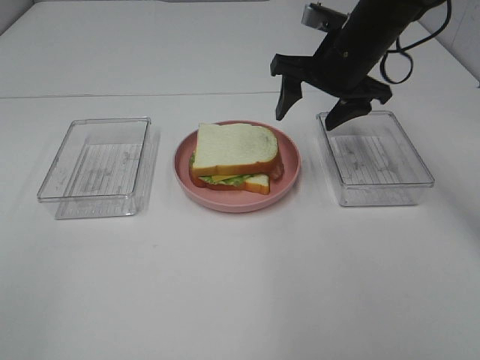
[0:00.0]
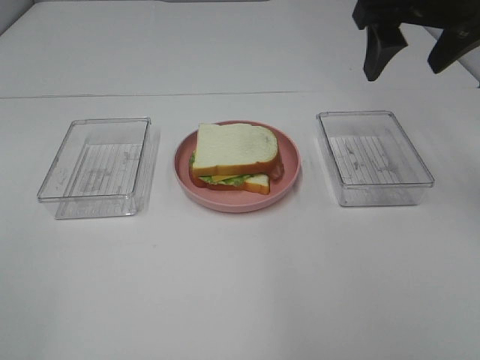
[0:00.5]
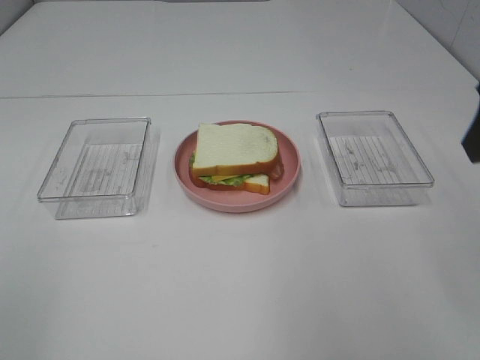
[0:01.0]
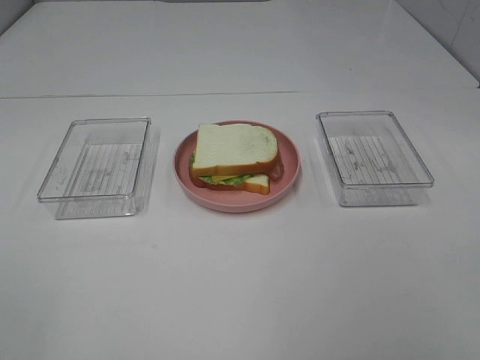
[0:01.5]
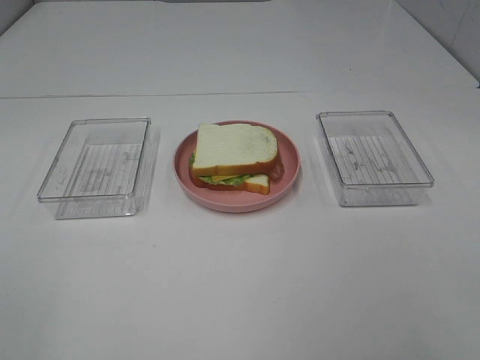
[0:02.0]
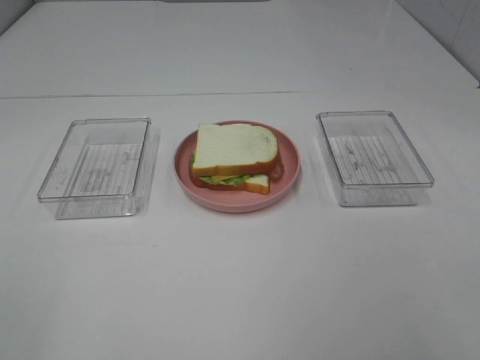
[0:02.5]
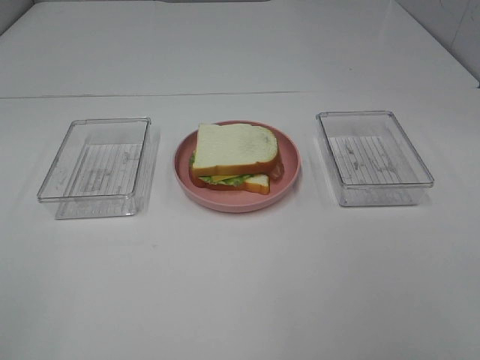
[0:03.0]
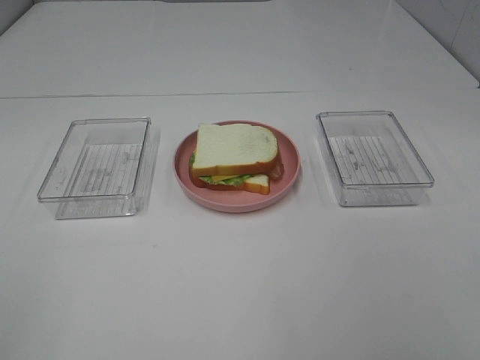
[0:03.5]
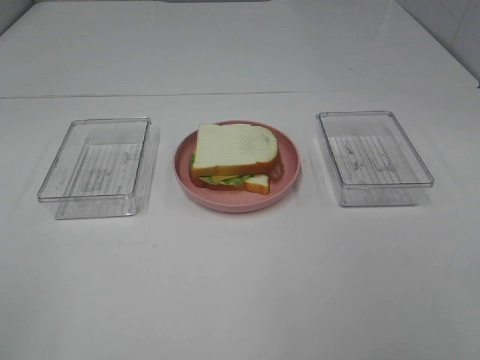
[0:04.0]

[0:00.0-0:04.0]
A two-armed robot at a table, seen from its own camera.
Task of the whole recording: Make sandwiches.
0:00.0 to 0:02.0: The right gripper moves backward, approximately 40 cm.
